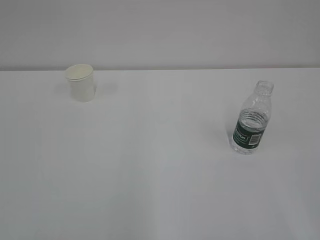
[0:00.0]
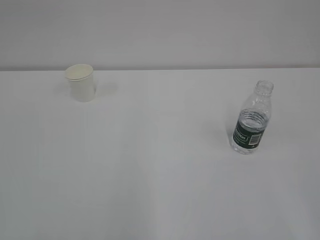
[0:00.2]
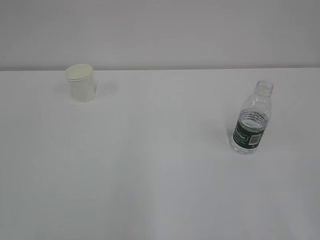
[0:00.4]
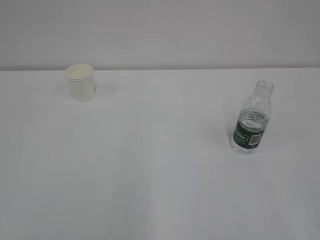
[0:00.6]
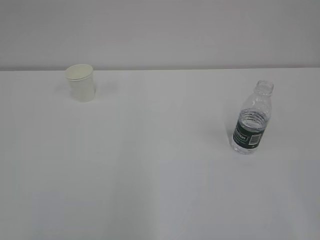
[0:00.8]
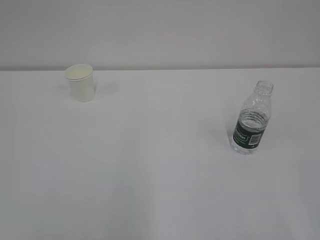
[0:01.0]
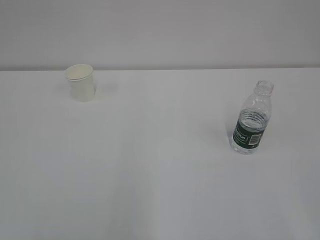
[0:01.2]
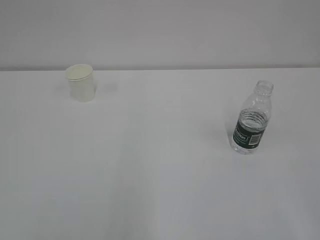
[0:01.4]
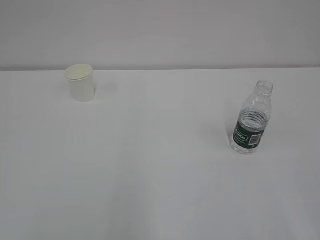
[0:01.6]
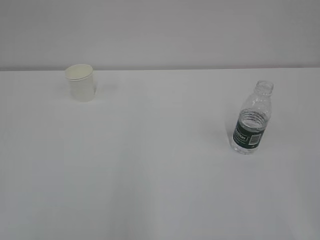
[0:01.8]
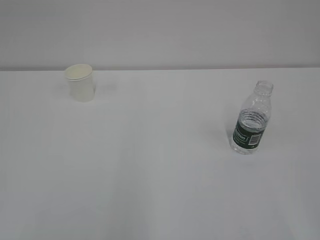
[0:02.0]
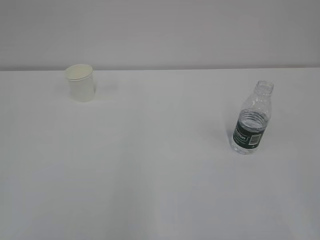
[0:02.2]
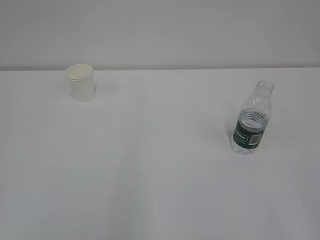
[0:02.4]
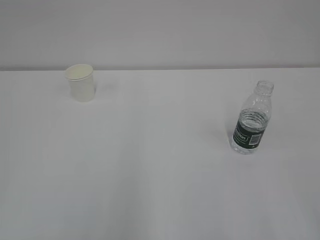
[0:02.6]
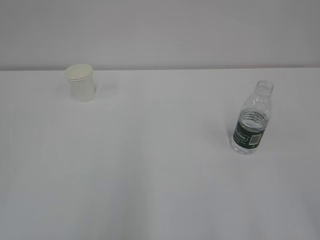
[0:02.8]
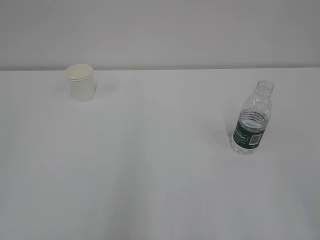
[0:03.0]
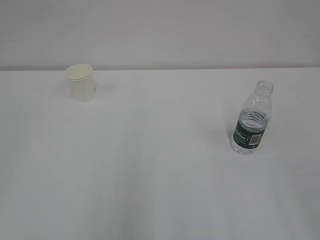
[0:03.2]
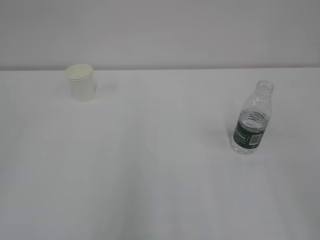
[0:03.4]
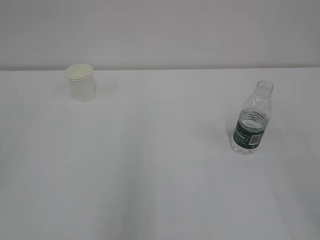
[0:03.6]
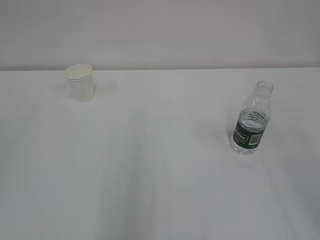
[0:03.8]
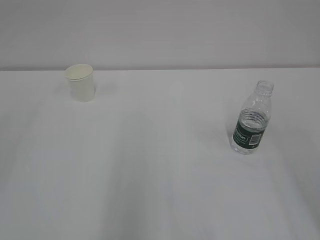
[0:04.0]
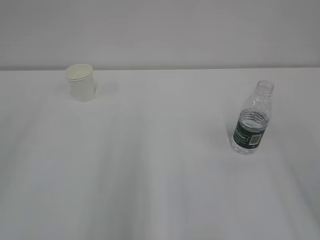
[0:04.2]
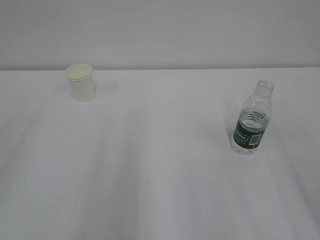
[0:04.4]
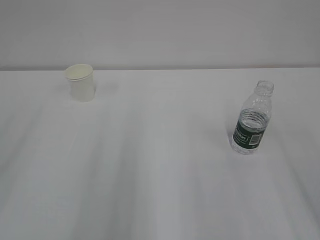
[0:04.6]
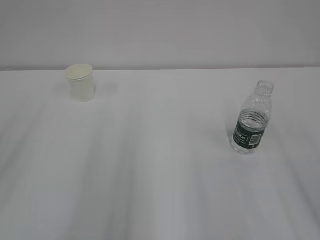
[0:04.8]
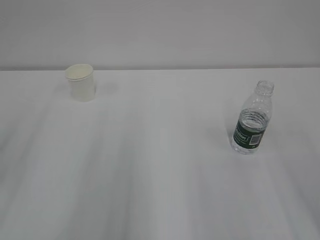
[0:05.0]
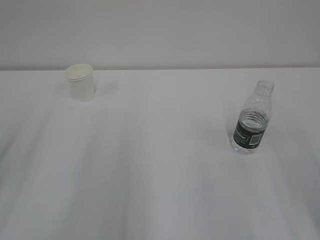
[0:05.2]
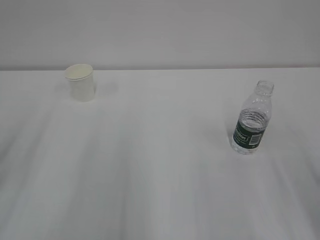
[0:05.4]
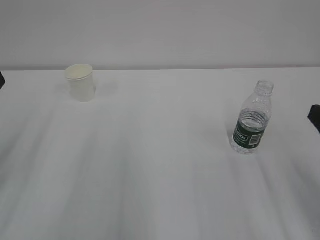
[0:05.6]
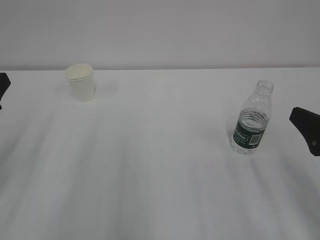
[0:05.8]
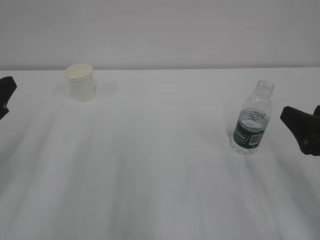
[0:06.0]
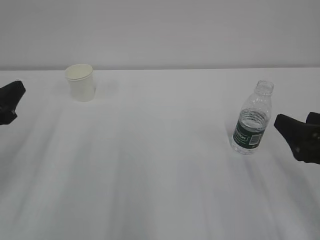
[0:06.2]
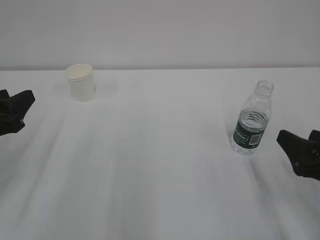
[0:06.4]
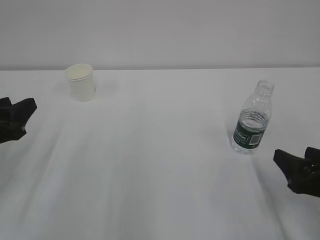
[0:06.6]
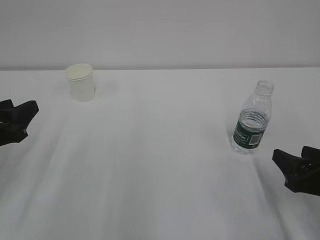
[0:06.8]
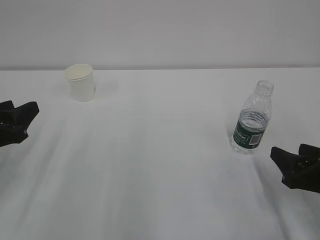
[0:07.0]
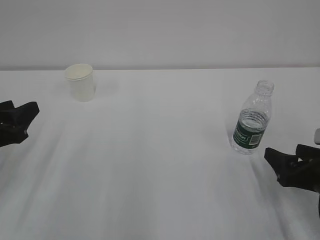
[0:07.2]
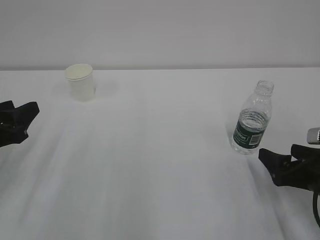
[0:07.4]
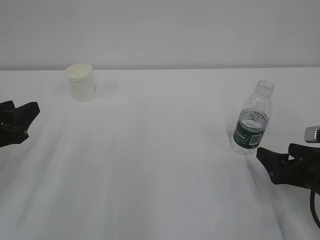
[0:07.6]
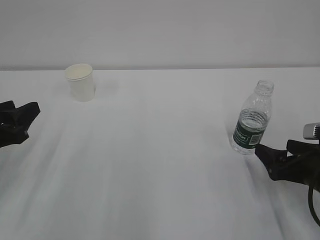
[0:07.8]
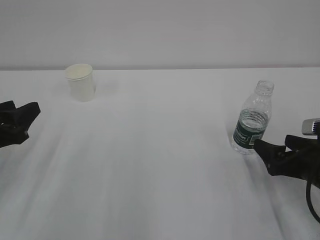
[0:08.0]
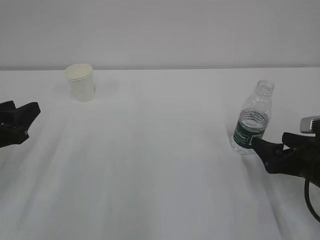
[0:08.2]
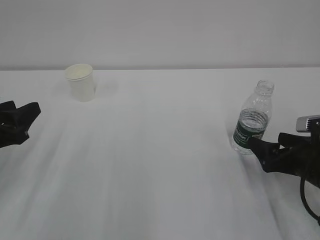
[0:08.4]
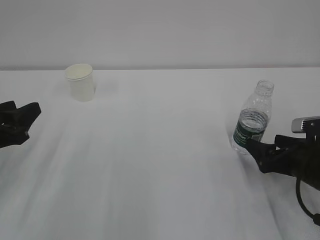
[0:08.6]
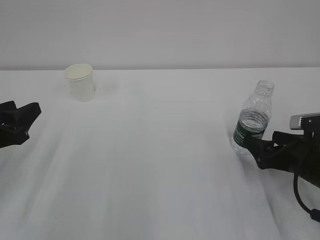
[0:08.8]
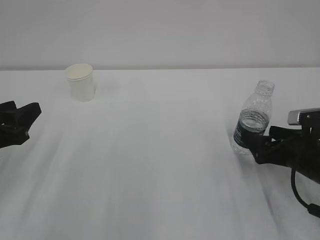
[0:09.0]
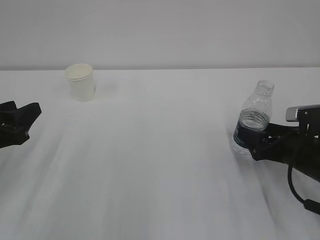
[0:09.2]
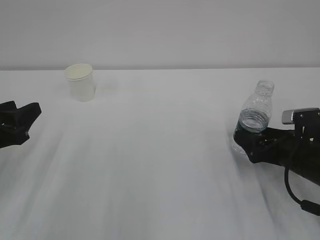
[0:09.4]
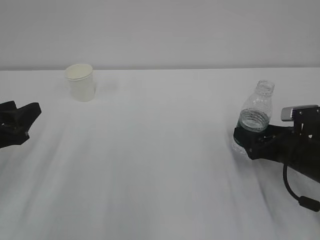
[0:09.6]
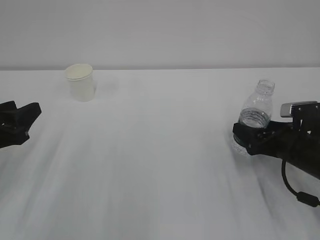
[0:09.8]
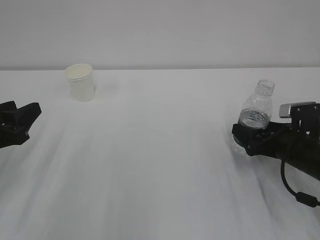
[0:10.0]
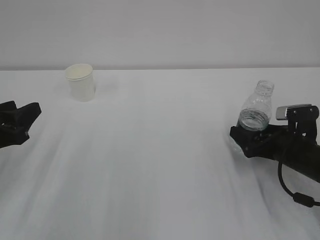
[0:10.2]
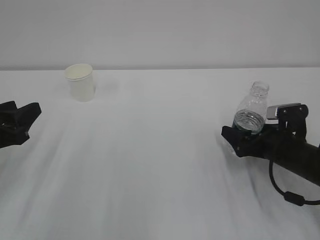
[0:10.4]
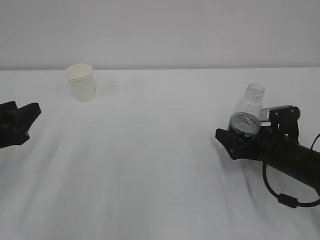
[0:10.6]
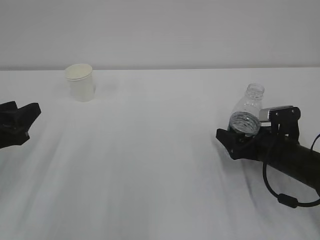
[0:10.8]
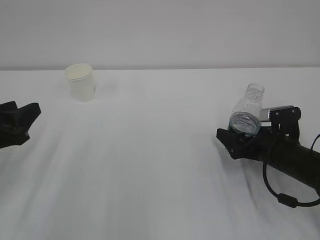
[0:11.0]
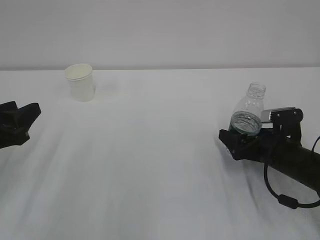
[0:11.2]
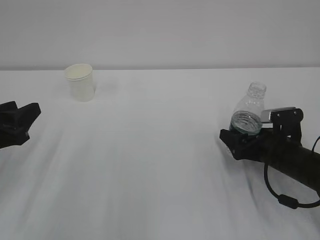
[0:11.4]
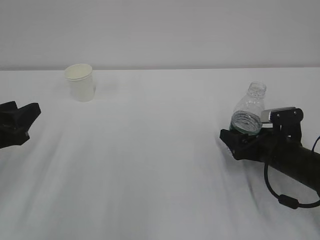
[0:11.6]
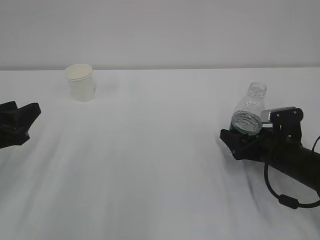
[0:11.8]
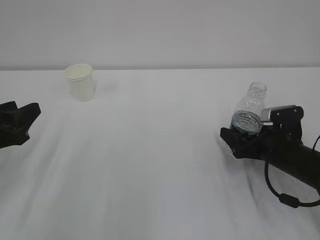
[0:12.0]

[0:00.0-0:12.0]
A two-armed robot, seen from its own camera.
0:04.4 to 0:06.0: The right gripper heads downward and forward, covering some 15 cm.
0:06.0 to 0:07.6: The right gripper travels downward by roughly 10 cm.
0:07.6 to 0:09.0: The grippers move only a little.
0:09.0 to 0:10.4: The grippers make only small movements.
0:10.4 to 0:12.0: Both grippers stay put.

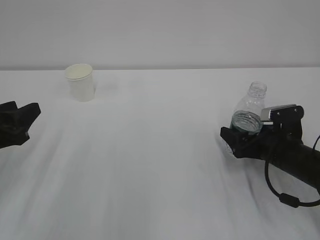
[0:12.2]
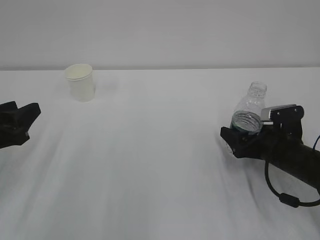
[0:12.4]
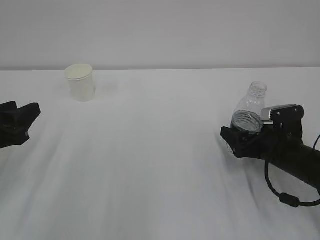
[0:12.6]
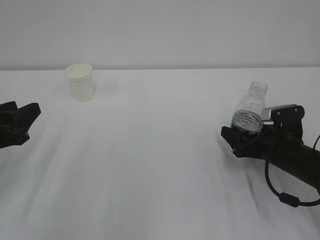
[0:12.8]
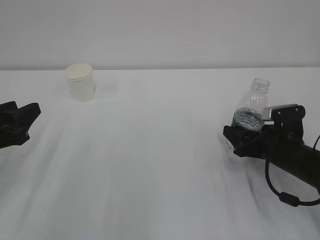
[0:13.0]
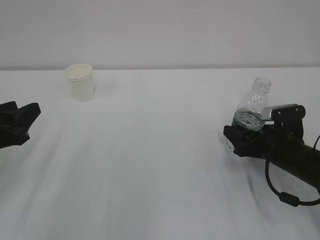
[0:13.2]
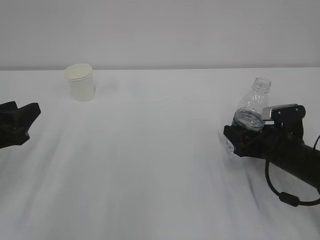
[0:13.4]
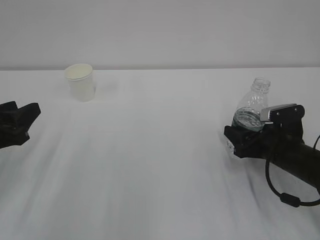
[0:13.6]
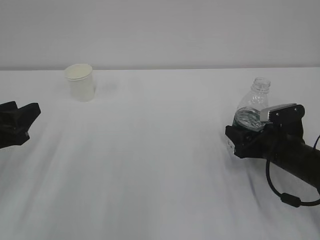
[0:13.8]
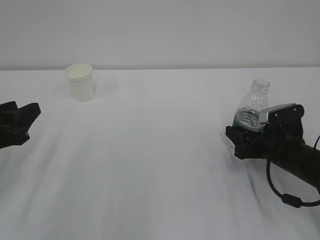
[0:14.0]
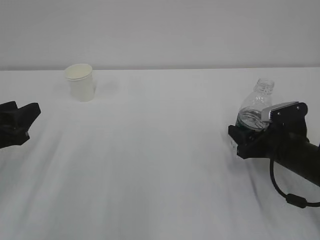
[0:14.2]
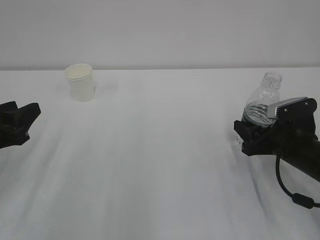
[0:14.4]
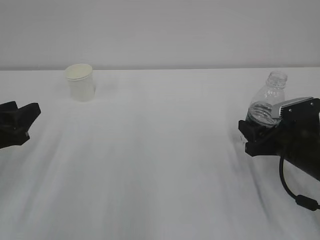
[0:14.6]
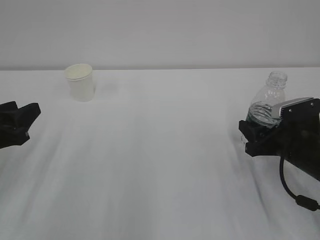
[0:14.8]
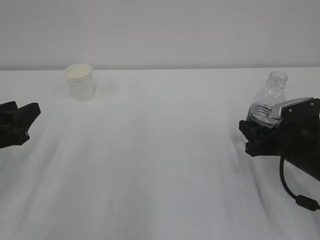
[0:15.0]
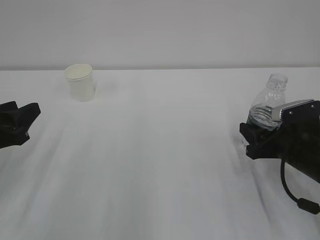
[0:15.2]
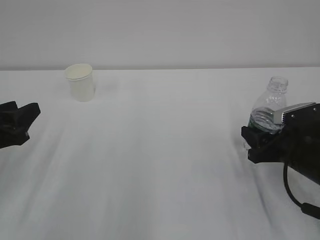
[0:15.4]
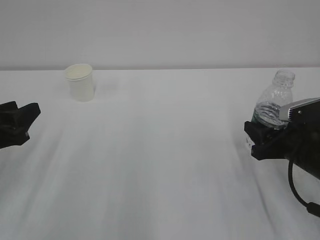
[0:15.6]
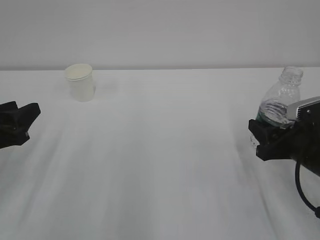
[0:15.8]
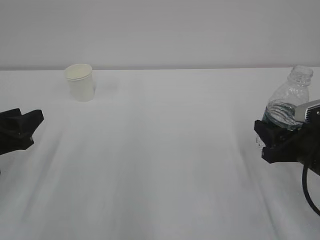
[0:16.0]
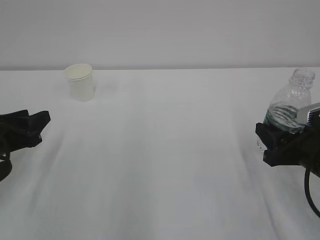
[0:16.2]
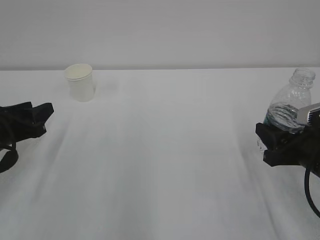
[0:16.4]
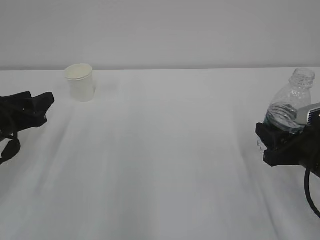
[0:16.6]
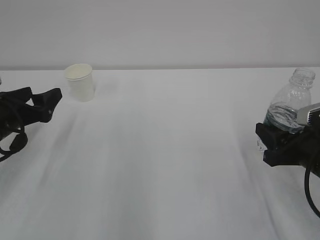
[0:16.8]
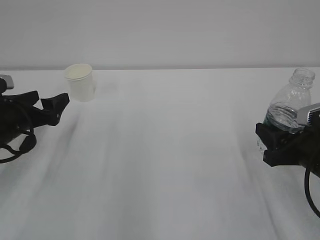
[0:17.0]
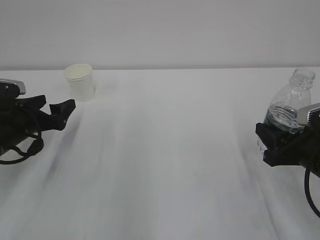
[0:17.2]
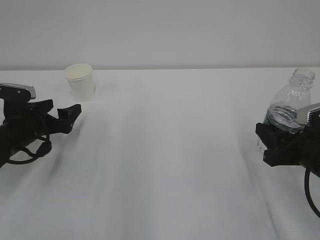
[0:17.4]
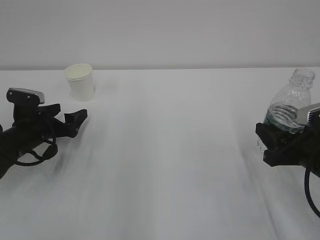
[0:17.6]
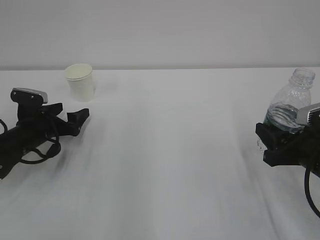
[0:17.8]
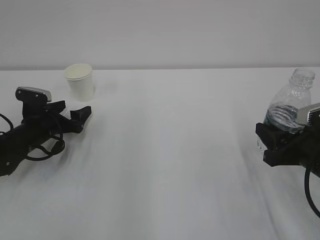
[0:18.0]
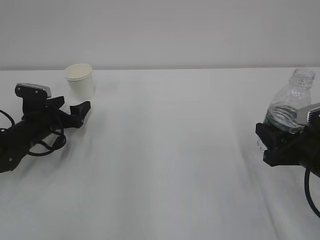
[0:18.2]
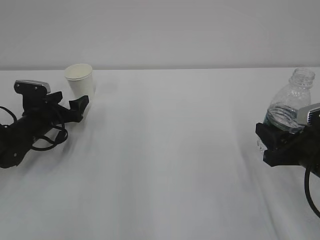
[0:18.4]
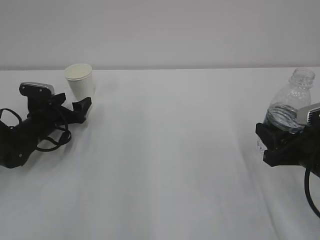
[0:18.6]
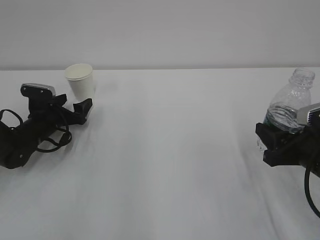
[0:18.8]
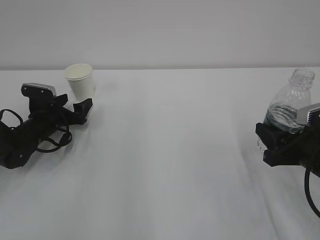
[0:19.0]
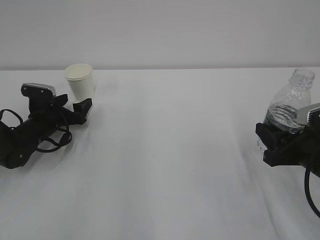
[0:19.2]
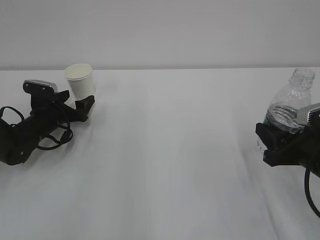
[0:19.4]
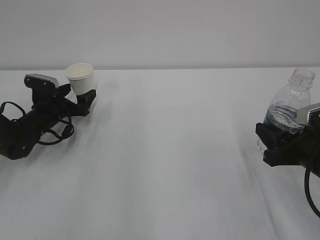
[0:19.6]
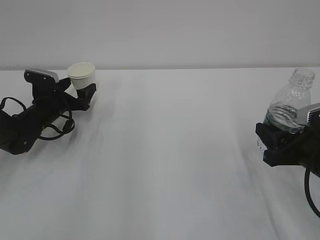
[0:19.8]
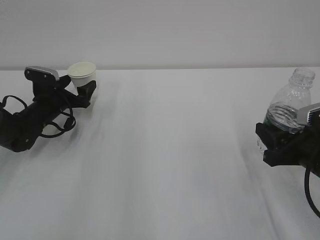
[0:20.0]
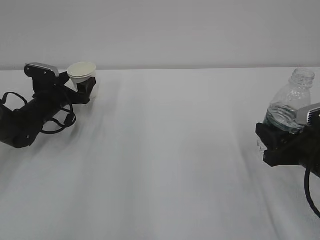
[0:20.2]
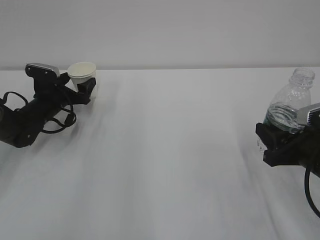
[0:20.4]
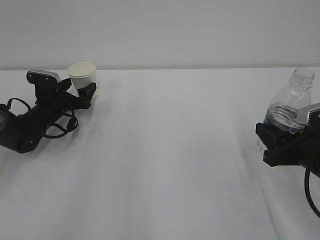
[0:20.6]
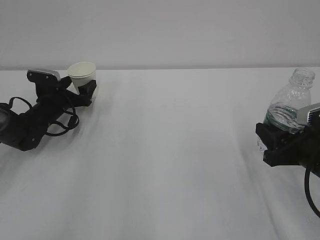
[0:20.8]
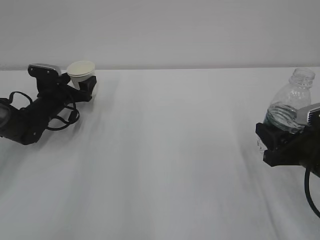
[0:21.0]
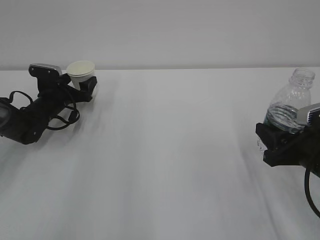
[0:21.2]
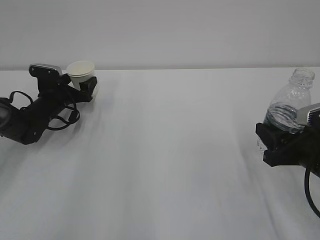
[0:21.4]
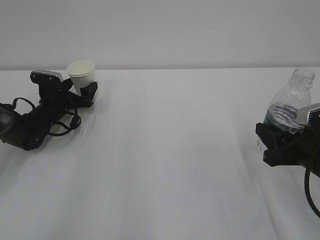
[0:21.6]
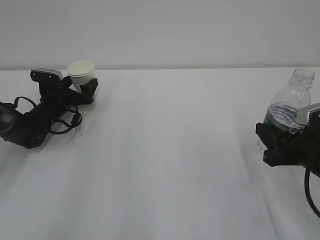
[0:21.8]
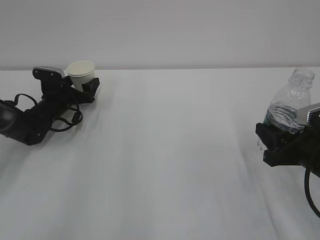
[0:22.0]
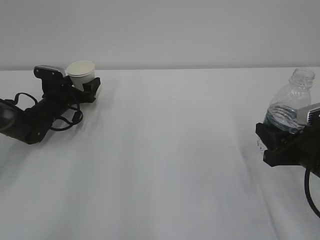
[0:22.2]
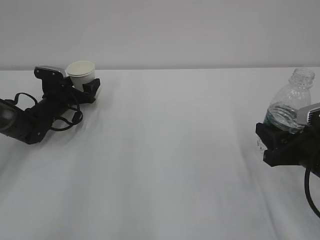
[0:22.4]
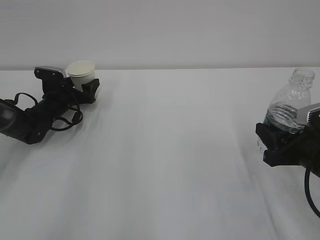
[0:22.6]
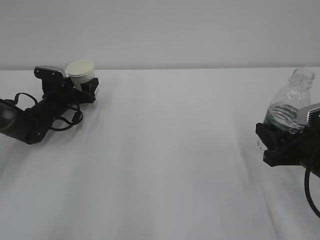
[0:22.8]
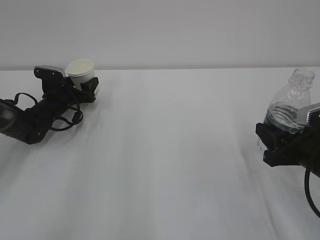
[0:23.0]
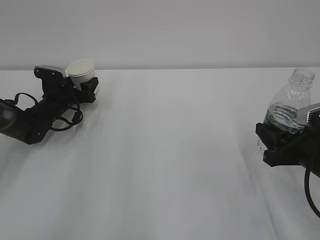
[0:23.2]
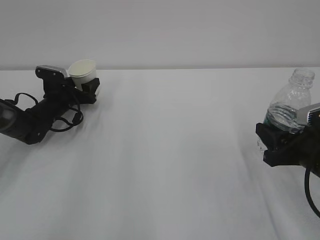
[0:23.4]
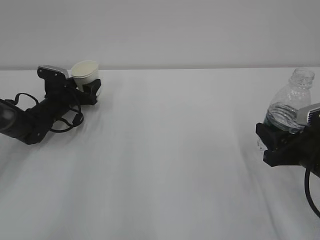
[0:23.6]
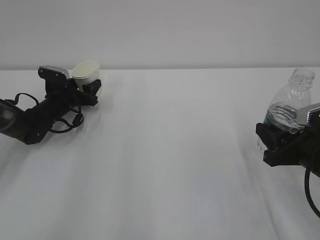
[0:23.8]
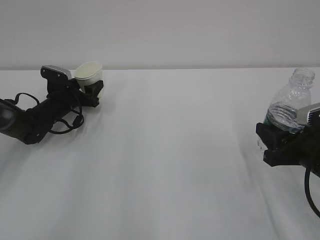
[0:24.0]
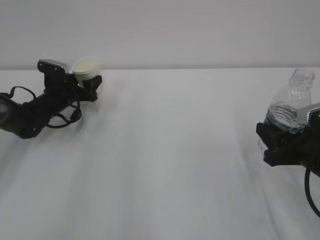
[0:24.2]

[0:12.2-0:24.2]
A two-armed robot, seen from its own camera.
0:12.2 to 0:13.8: The right gripper closes up.
0:13.8 to 0:15.2: There are only small adjustments of the grippers.
0:15.2 to 0:16.6: The left gripper travels forward by roughly 5 cm. The right gripper shifts by roughly 5 cm.
0:16.6 to 0:18.2: The left gripper goes about 15 cm forward and downward, and opens up.
0:18.2 to 0:19.8: The grippers stay close to where they were, moving slightly.
0:19.8 to 0:22.6: The grippers make only small movements.
0:22.6 to 0:24.2: The left gripper closes up.
